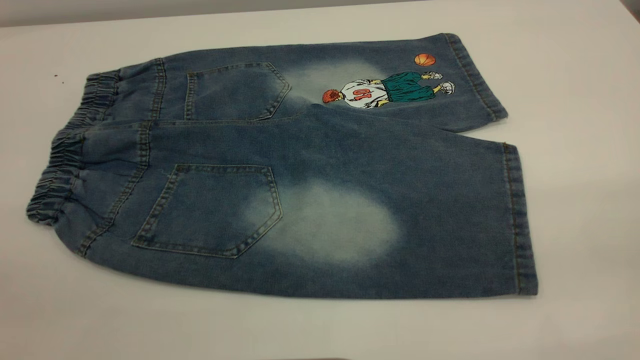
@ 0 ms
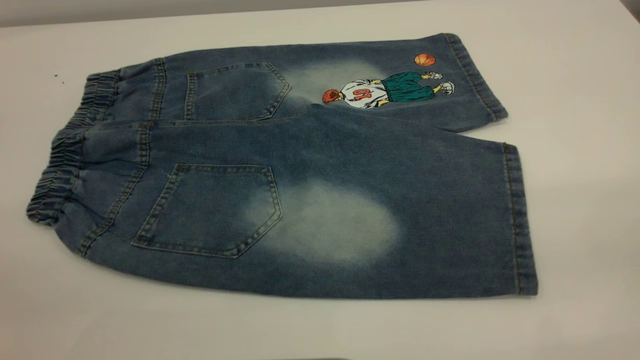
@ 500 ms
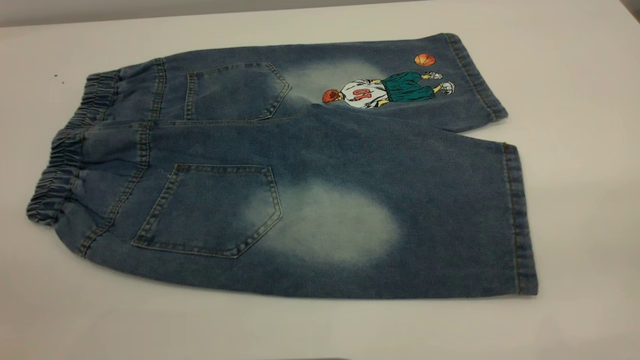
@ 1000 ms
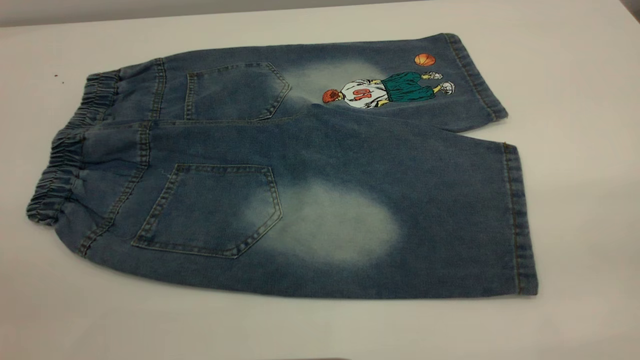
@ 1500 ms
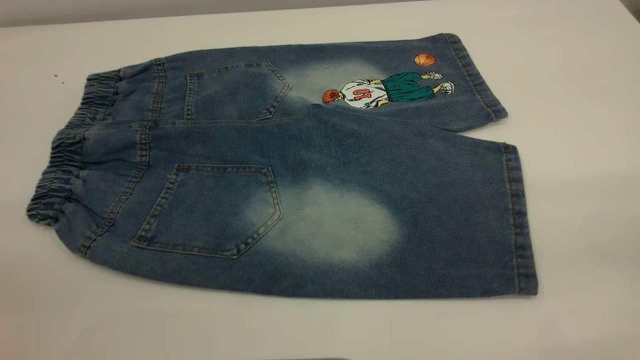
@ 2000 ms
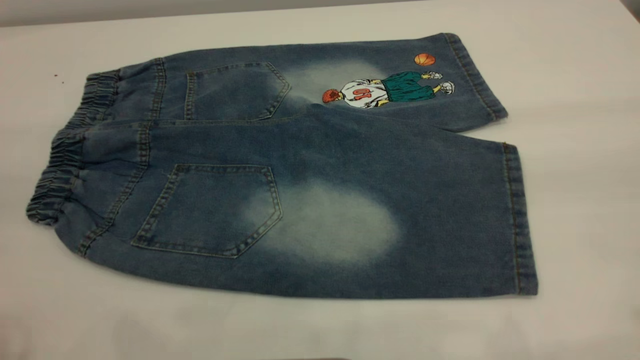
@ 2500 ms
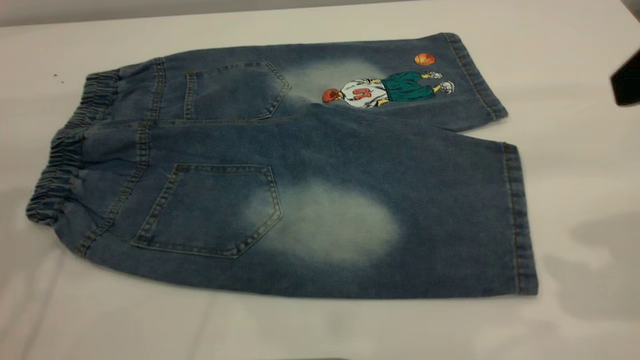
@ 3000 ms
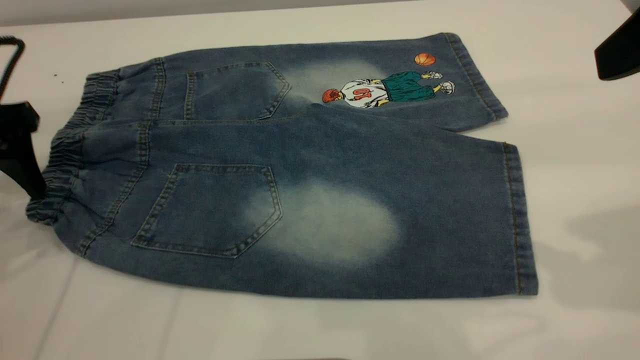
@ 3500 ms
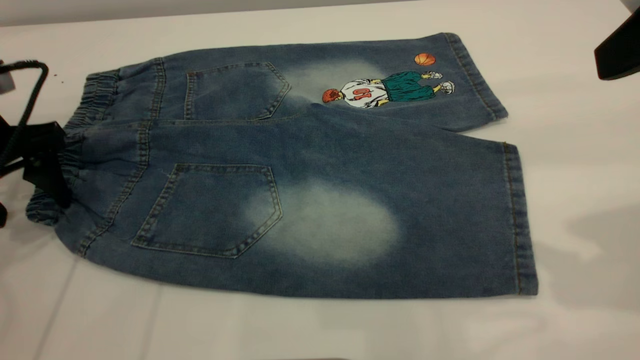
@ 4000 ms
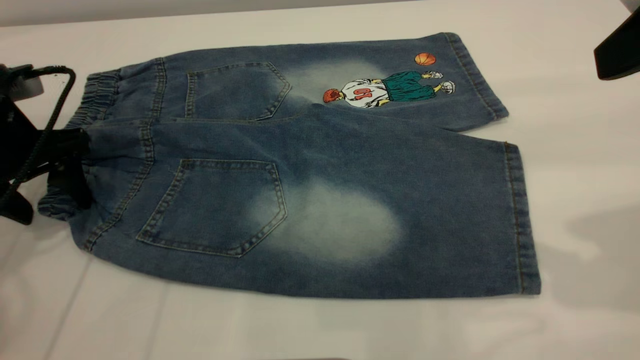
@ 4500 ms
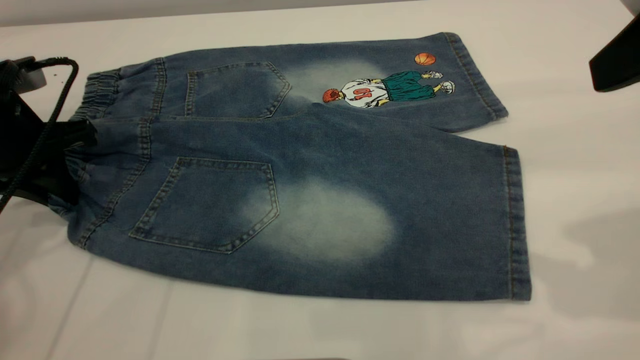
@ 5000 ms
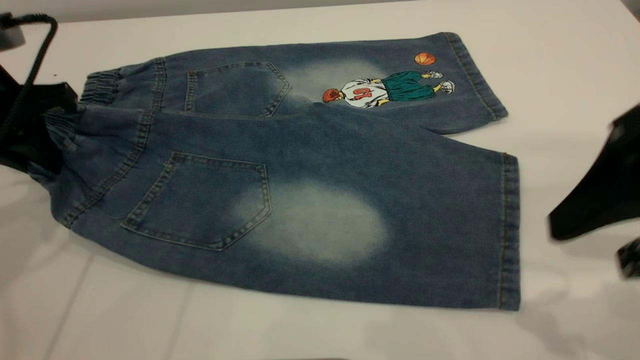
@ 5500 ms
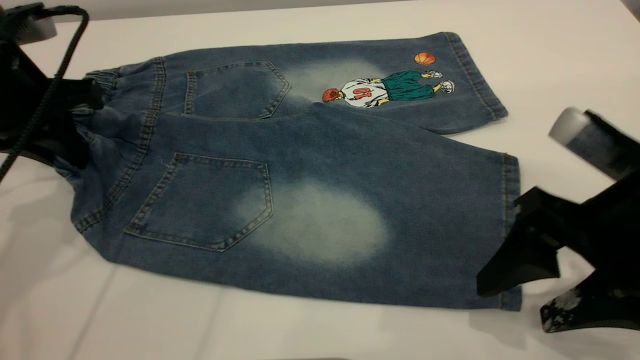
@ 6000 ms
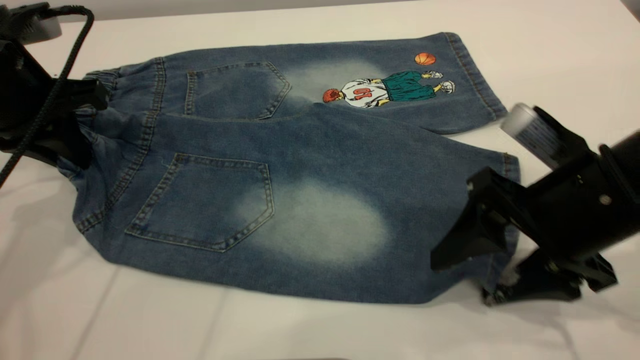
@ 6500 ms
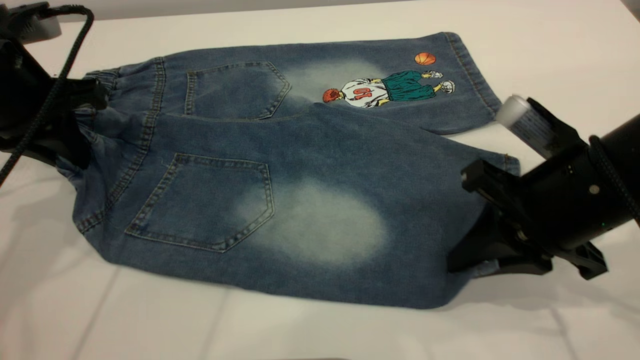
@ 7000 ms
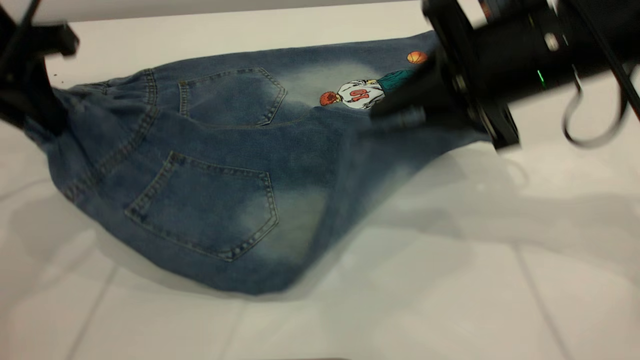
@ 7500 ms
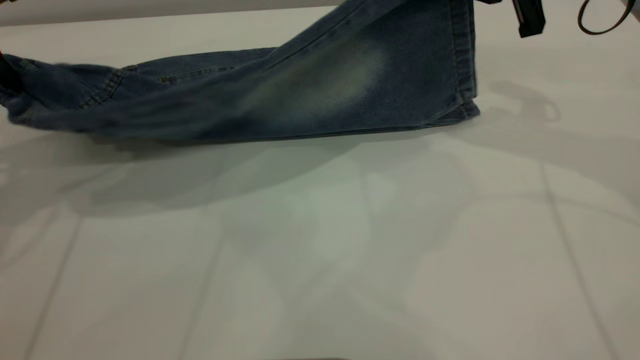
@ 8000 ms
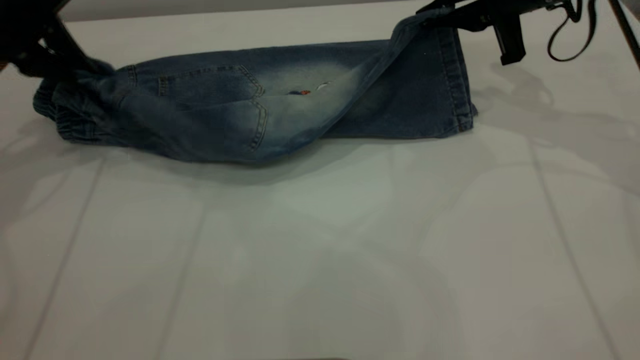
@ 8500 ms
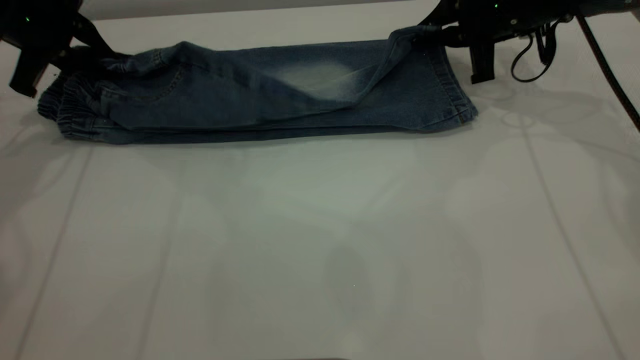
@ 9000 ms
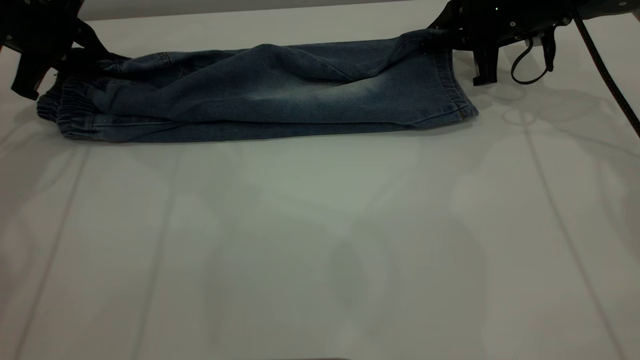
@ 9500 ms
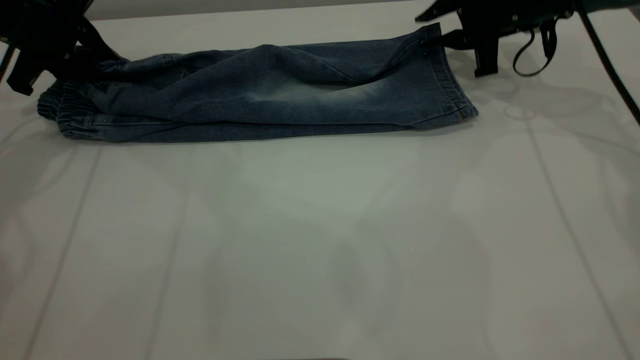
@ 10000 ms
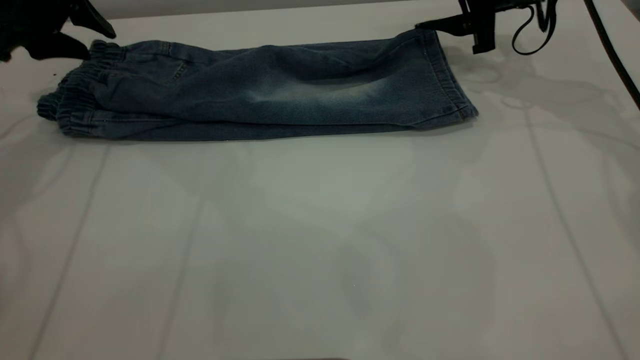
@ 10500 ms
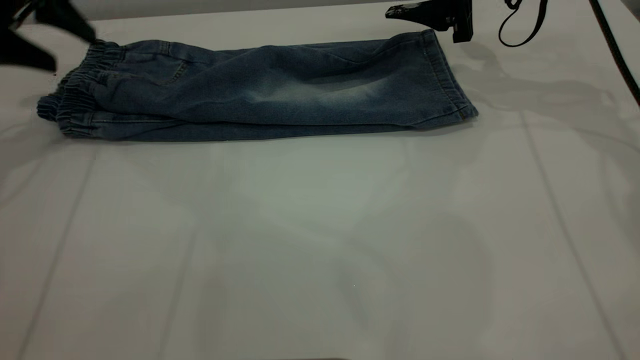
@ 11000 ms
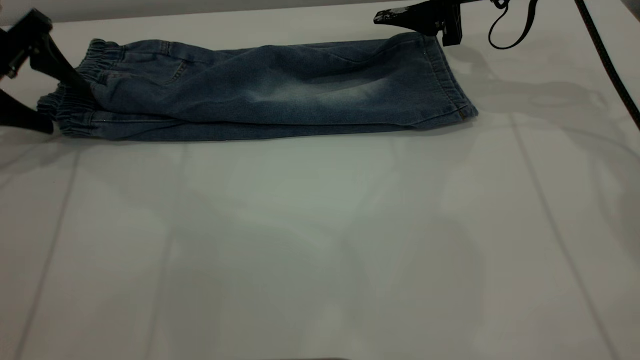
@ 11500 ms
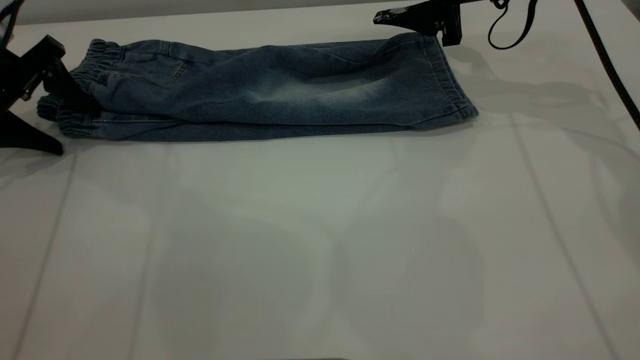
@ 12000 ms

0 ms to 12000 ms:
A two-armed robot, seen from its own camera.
Step, 0 ms to 10500 ms: Fold the bottom of the pants upward.
0 ms to 2000 ms: Neither gripper changes place.
2000 ms to 4000 ms: The left gripper moves forward and downward, some 40 cm, while the right gripper heads forward, covering roughly 20 cm.
4000 ms to 6000 ms: The left gripper travels to the right by roughly 5 cm, and closes up. The right gripper shifts some 15 cm downward.
6000 ms to 8000 ms: The right gripper shifts about 20 cm forward and upward, and closes up. Meanwhile the left gripper is displaced upward by about 5 cm.
8000 ms to 10000 ms: The grippers both shift forward and downward by roughly 15 cm. The right gripper opens up.
10000 ms to 12000 ms: The right gripper changes place by about 5 cm, and opens up, while the left gripper moves approximately 5 cm, and opens up.

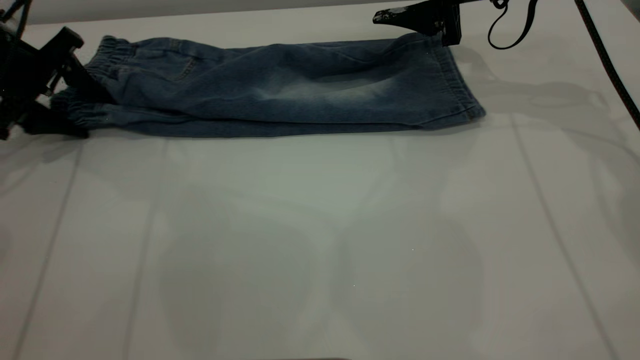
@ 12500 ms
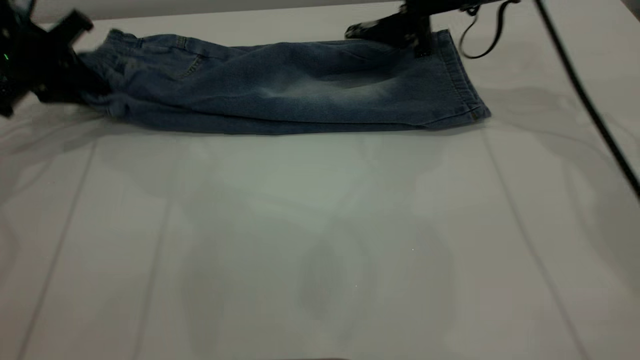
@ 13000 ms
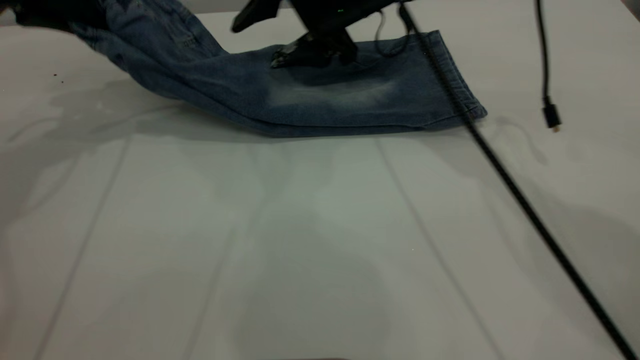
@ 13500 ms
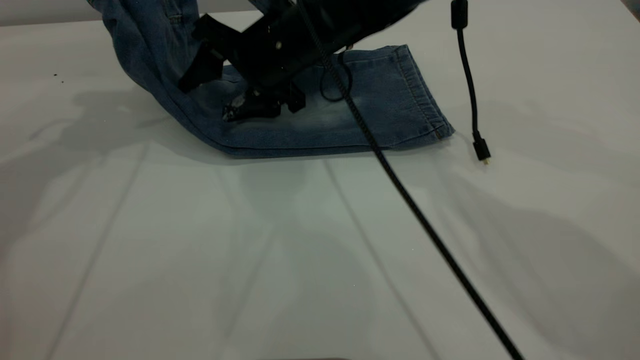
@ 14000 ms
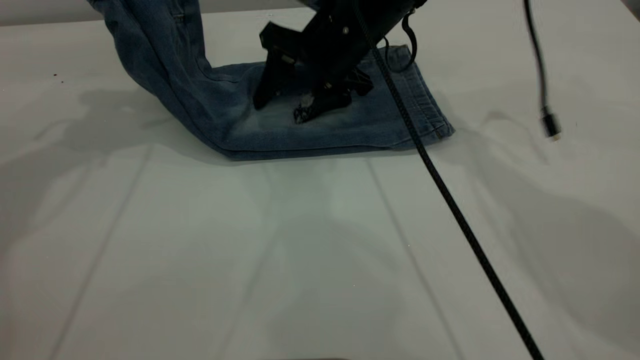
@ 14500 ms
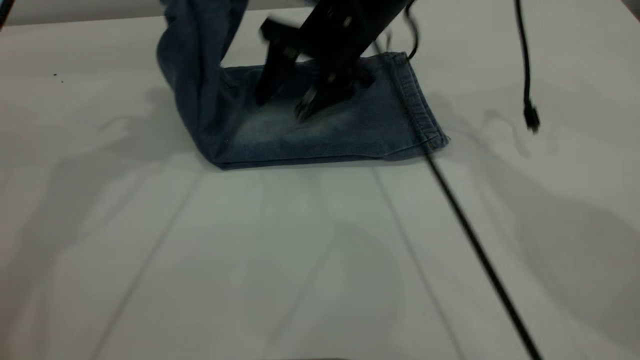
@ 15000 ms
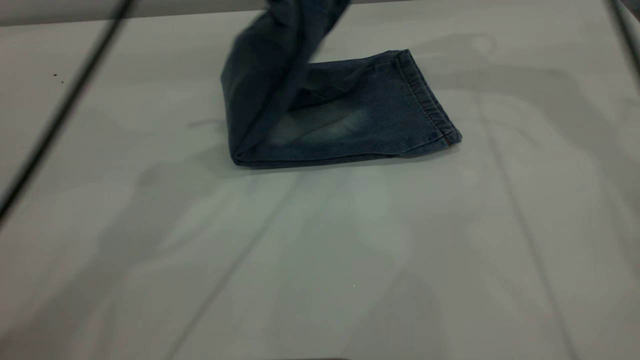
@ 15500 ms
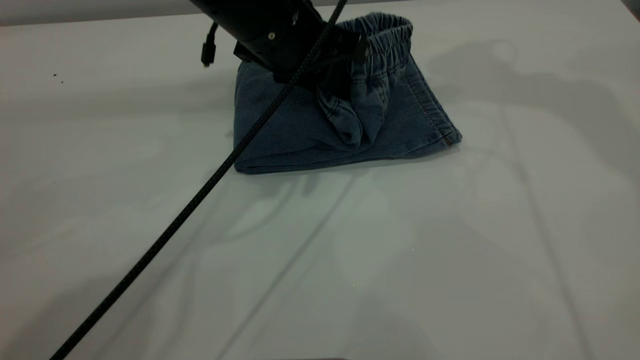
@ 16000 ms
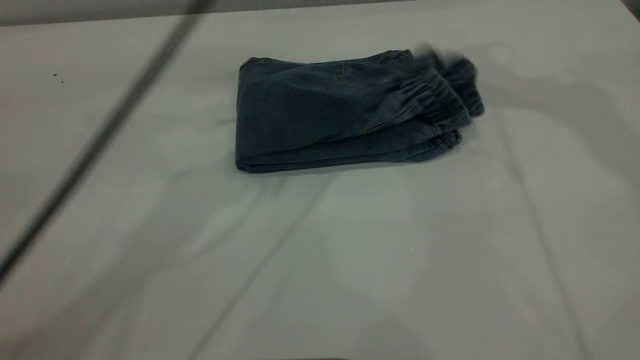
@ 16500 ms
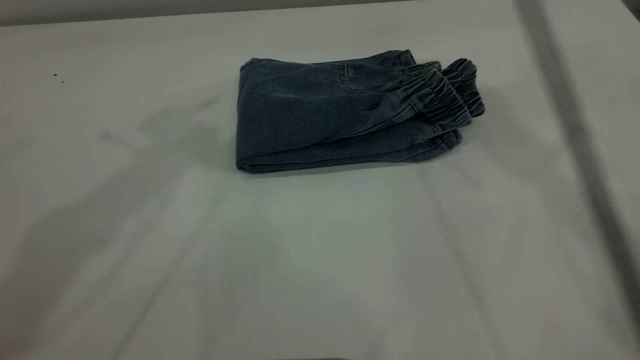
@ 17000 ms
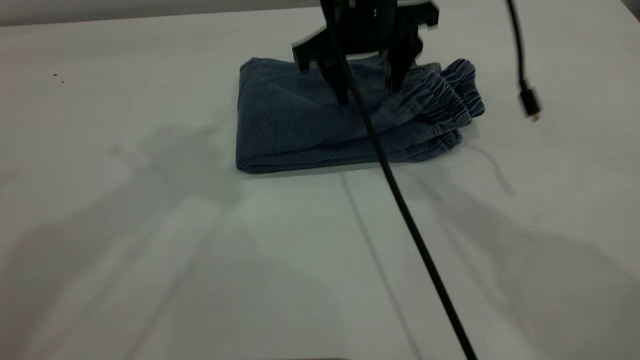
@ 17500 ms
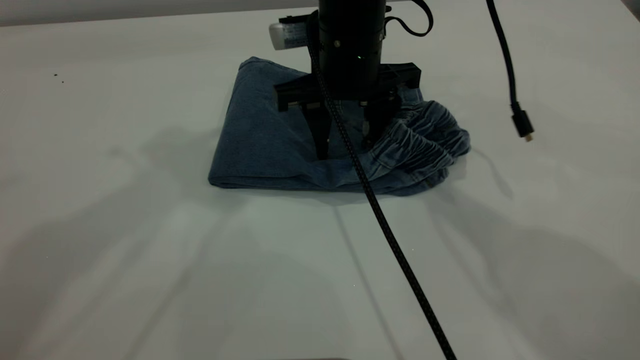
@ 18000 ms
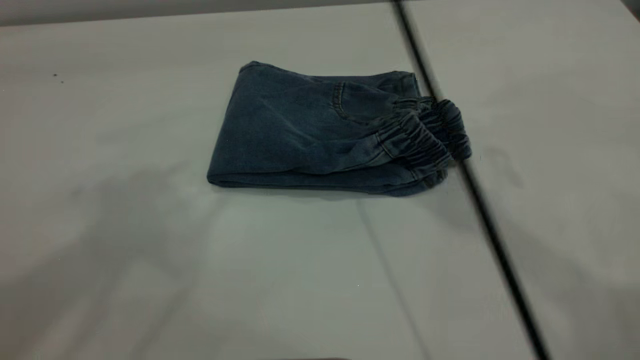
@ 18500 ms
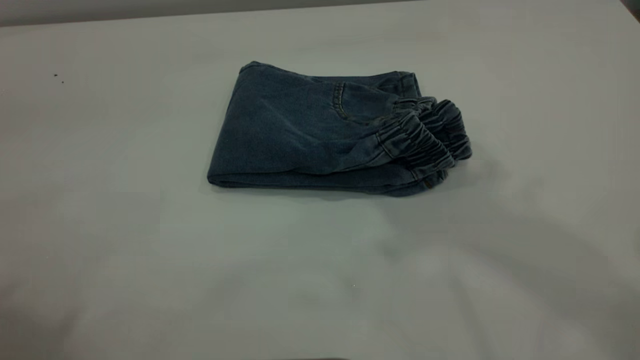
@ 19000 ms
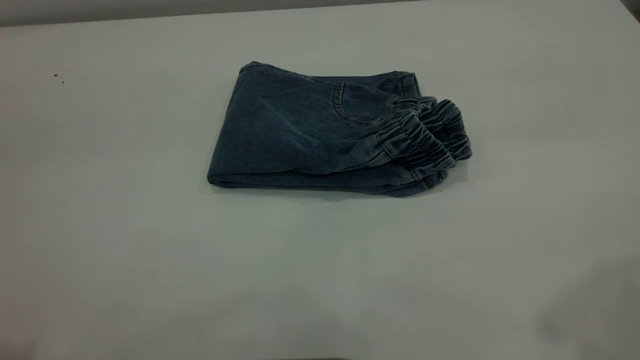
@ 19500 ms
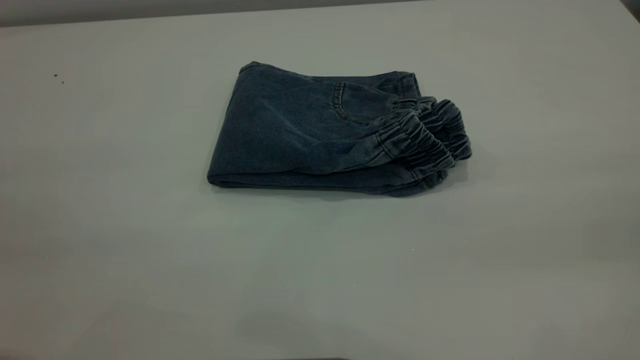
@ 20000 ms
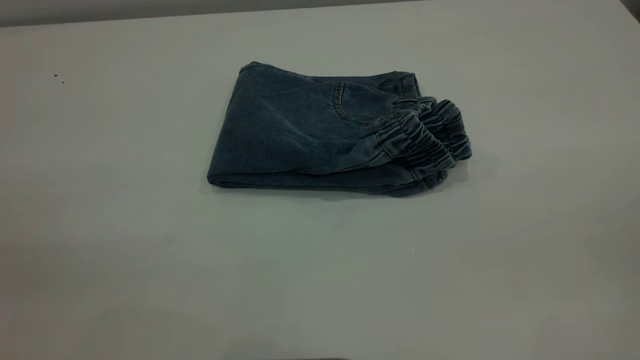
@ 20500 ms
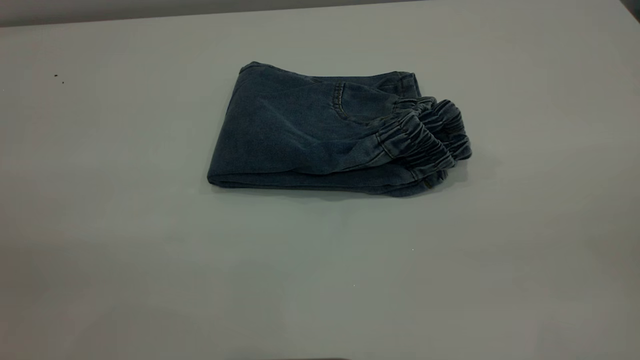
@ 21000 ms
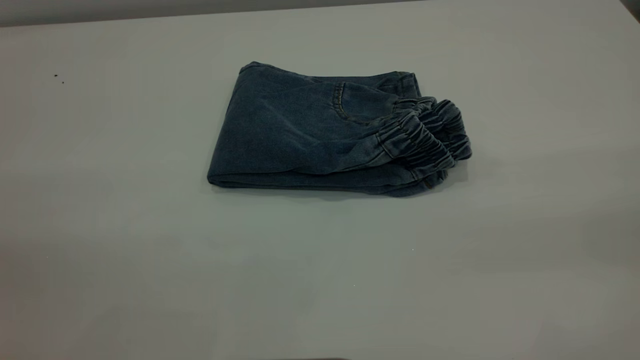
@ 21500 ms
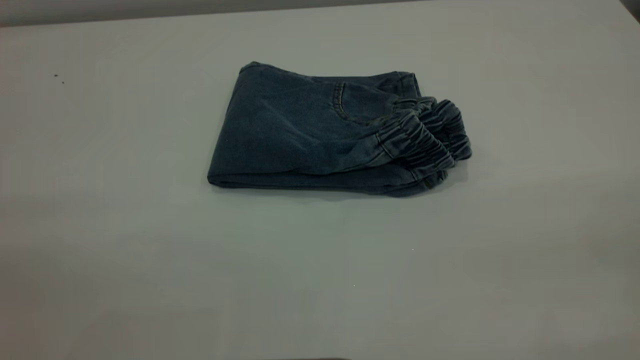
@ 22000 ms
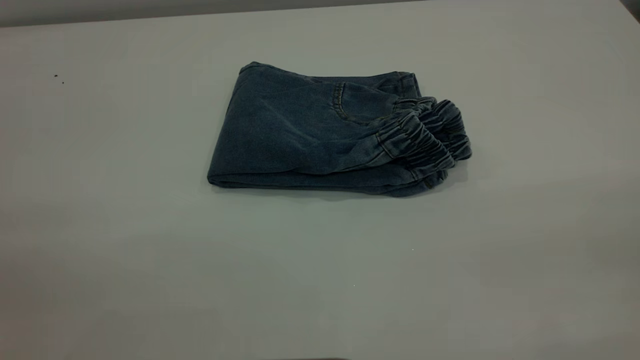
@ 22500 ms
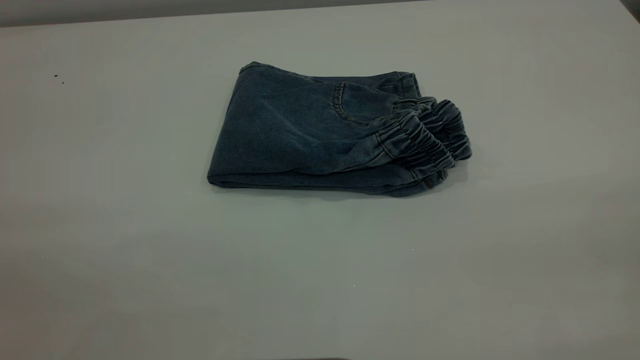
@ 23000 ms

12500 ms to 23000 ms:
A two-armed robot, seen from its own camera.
Step, 12500 ms to 17000 ms: Fold the pants from left to right.
12500 ms to 14500 ms: The right gripper moves to the left, some 15 cm; the left gripper moves upward and to the right, some 20 cm, and closes its fingers.
14500 ms to 16500 ms: The right gripper shifts roughly 30 cm upward and to the right; the left gripper shifts about 20 cm to the right, and opens.
16500 ms to 19000 ms: The right gripper is displaced backward and to the left by approximately 20 cm, and moves approximately 25 cm downward and comes back; the left gripper heads backward, upward and to the left, covering approximately 40 cm.
